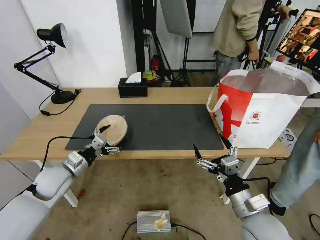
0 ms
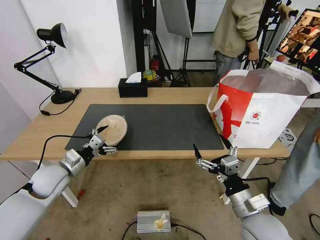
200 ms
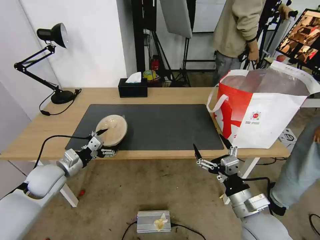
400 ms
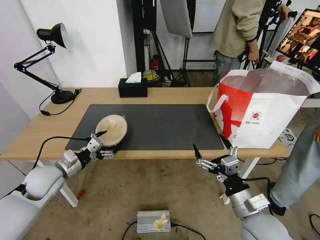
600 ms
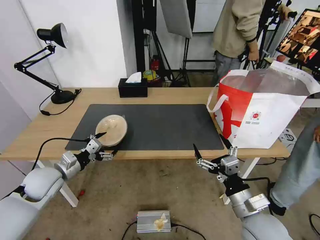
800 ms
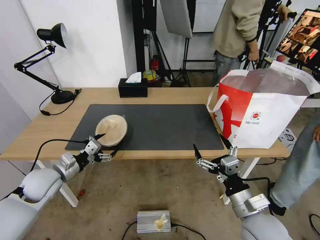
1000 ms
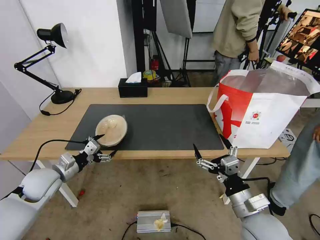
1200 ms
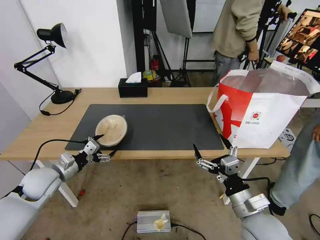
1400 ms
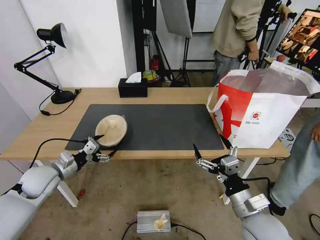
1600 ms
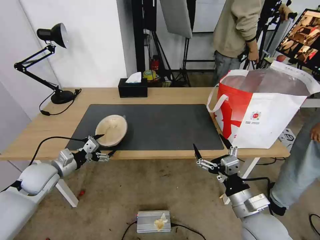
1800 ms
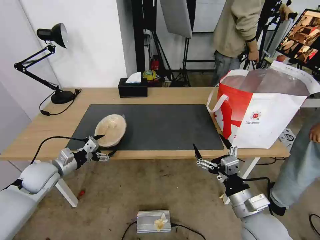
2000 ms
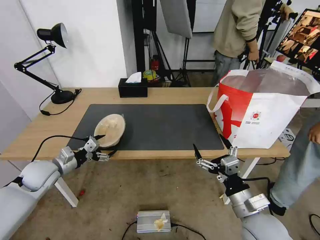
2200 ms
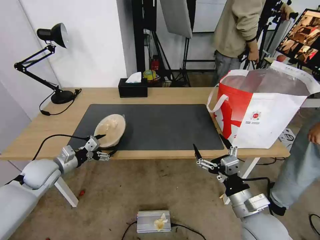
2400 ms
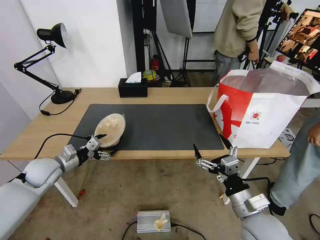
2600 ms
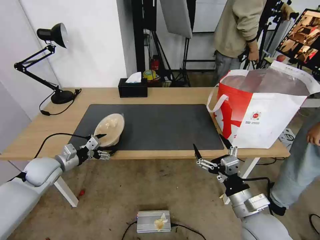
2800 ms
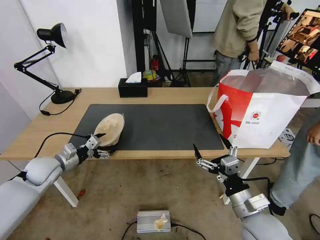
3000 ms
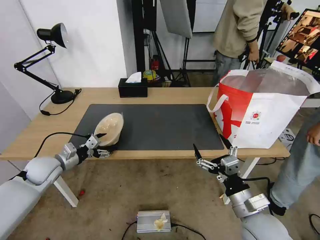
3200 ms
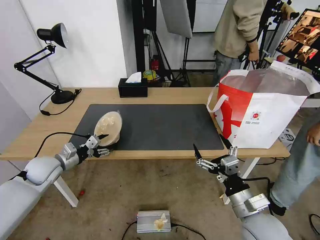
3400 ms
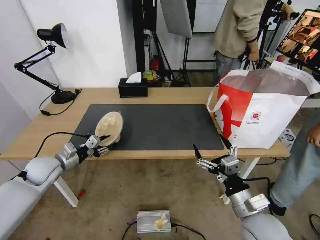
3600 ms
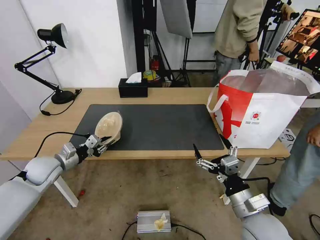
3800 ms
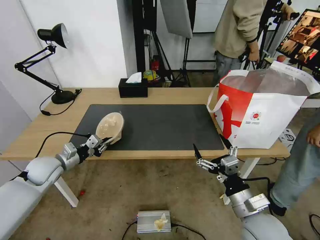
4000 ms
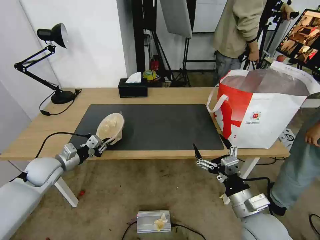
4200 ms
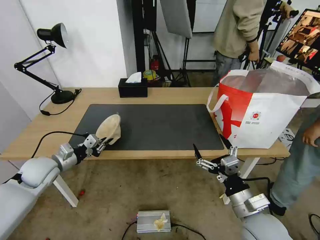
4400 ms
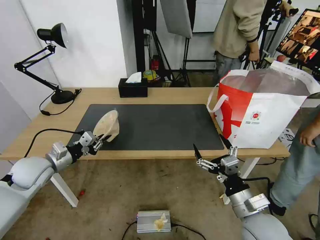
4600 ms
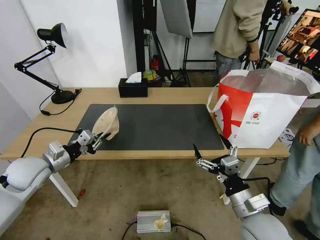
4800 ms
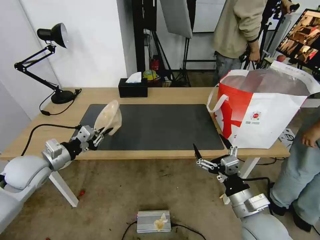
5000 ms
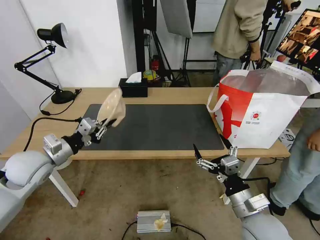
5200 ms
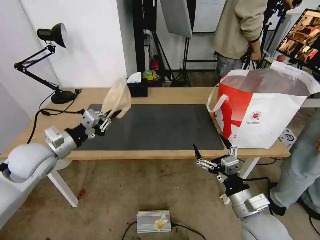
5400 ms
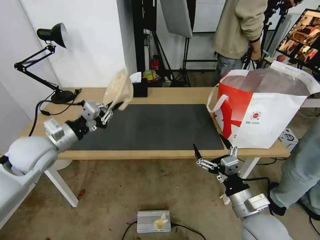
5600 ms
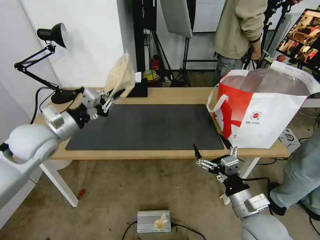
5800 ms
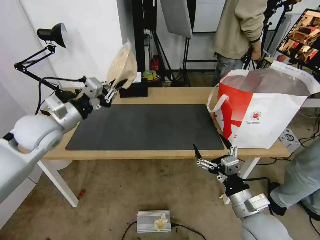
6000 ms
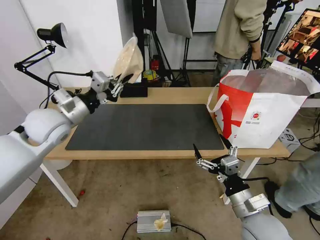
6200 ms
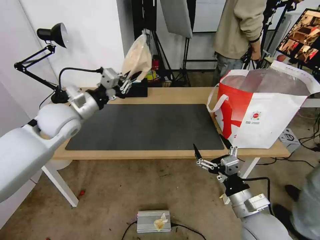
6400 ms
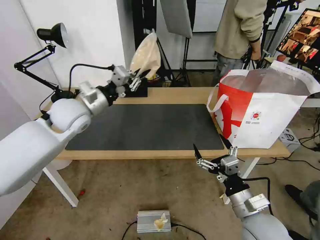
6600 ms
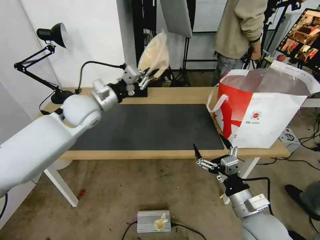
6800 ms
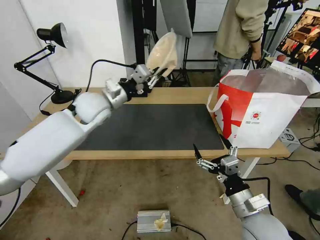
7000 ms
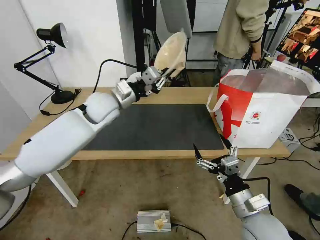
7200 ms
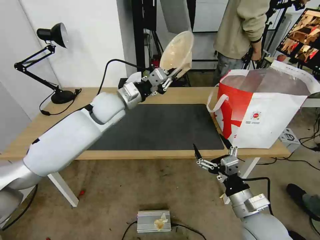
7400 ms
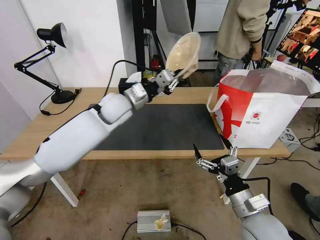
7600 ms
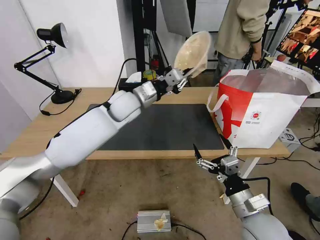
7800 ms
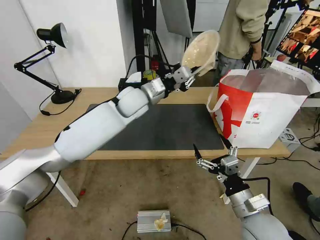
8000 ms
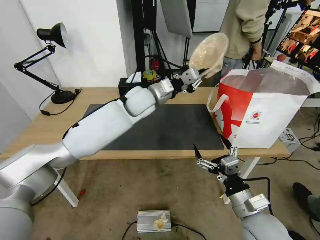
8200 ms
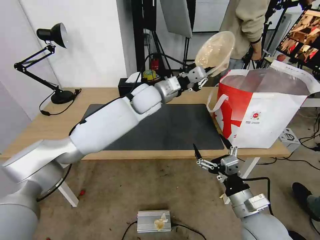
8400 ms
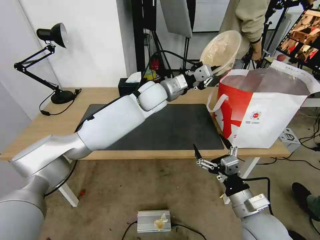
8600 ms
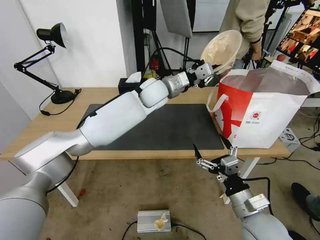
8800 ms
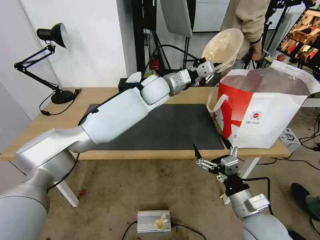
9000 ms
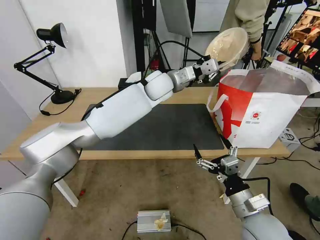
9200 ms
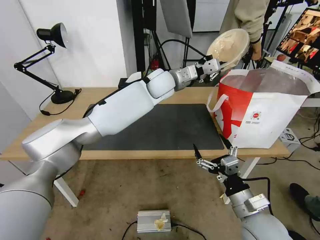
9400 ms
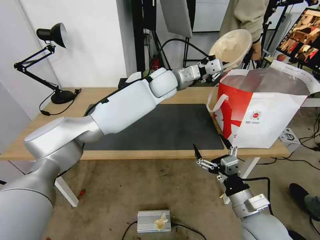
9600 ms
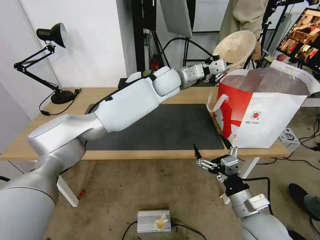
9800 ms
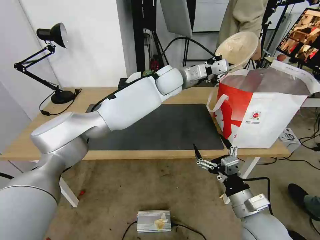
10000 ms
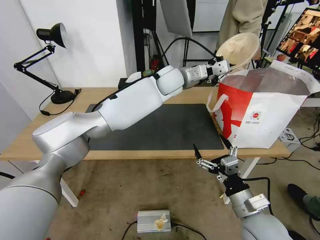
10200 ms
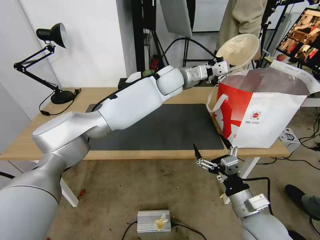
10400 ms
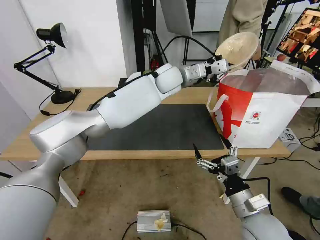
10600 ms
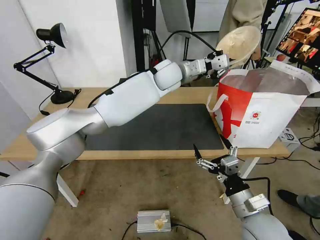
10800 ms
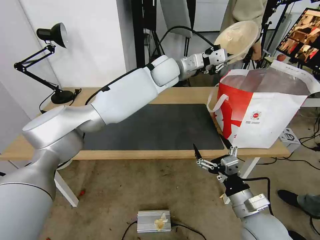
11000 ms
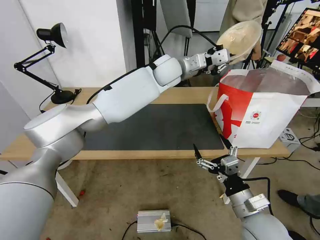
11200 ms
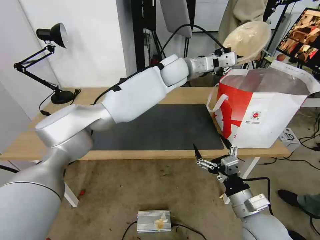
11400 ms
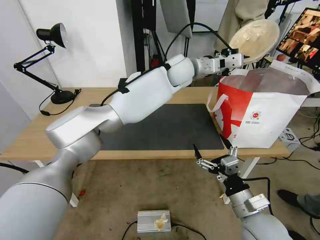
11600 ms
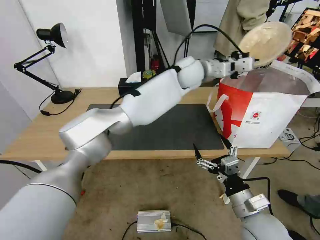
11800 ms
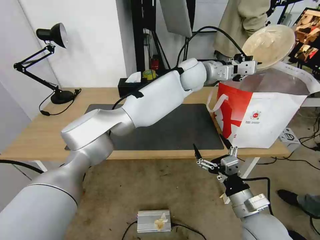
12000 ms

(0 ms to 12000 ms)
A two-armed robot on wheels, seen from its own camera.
Task of the whole recording: Pick up the trash from the table and place it into the takeout bag.
0 ms - 1600 ms: The grippers stay close to where they were, moving slightly.
1600 ms - 3000 ms: There are only small adjustments of the grippers.
3000 ms - 4400 ms: The left gripper closes its fingers.
4400 ms - 6000 ms: The left gripper travels upward and to the right by about 20 cm.
6000 ms - 7600 ms: The left gripper is displaced to the right and forward by about 20 cm.
7600 ms - 9000 ms: The left gripper is displaced to the right and forward by about 15 cm.
9000 ms - 10400 ms: The left gripper changes place by roughly 5 cm.
10400 ms - 12000 ms: The left gripper goes roughly 5 cm to the right.

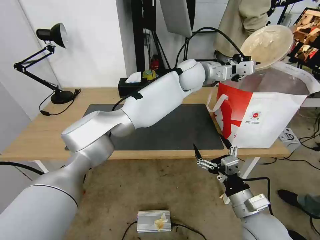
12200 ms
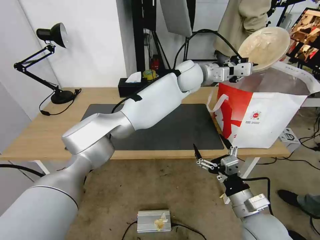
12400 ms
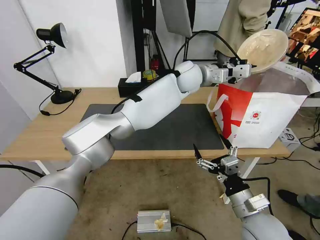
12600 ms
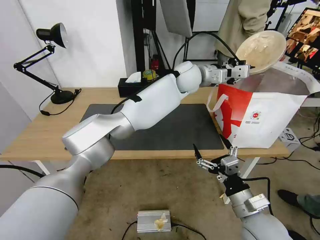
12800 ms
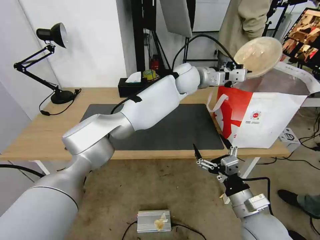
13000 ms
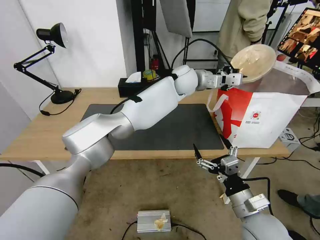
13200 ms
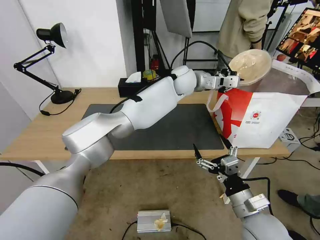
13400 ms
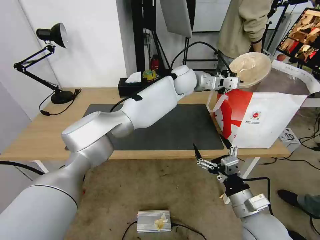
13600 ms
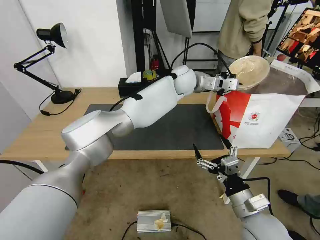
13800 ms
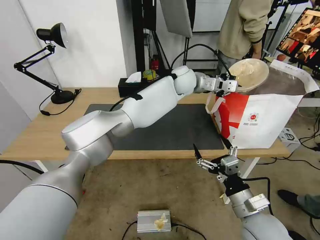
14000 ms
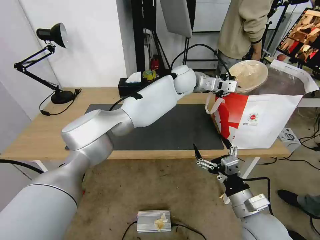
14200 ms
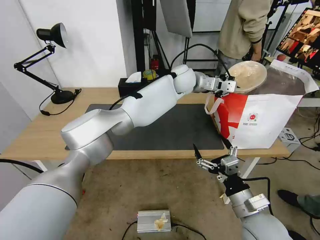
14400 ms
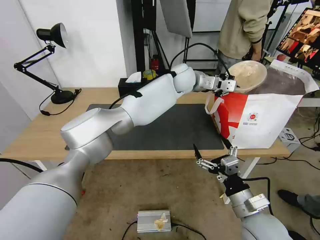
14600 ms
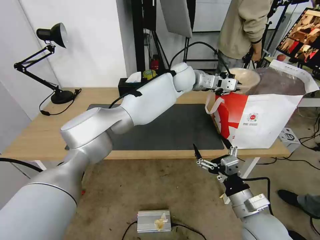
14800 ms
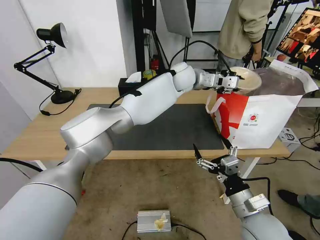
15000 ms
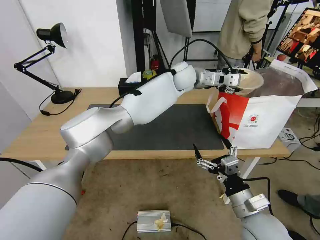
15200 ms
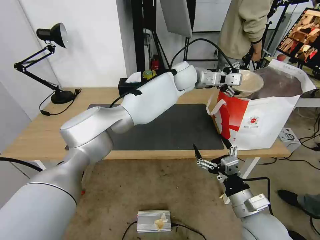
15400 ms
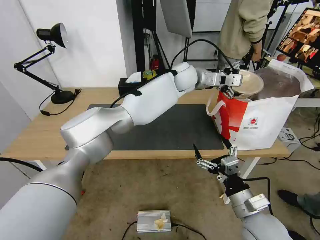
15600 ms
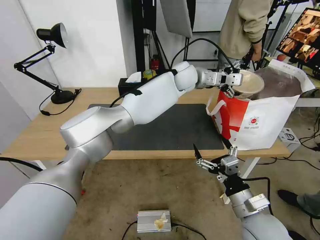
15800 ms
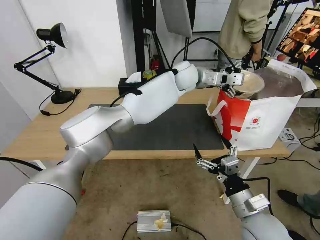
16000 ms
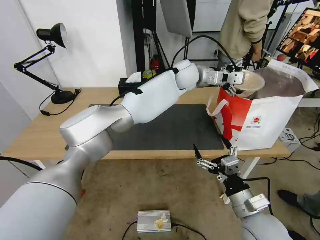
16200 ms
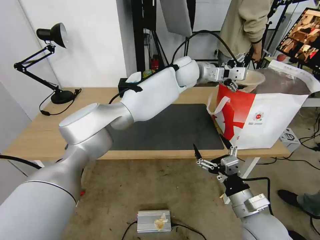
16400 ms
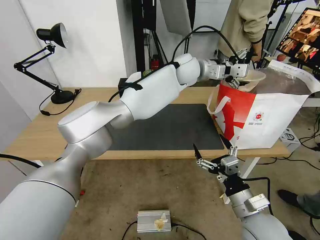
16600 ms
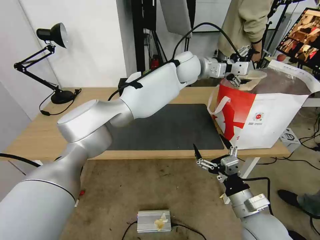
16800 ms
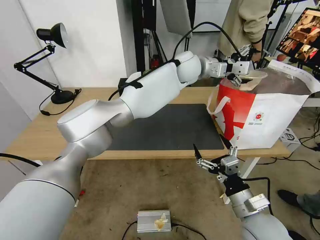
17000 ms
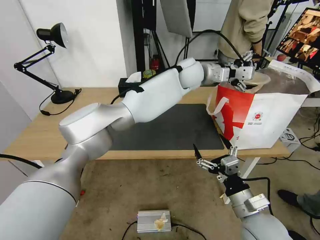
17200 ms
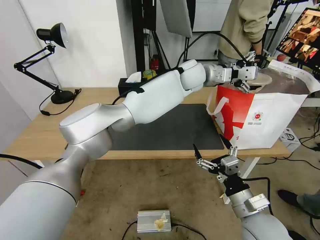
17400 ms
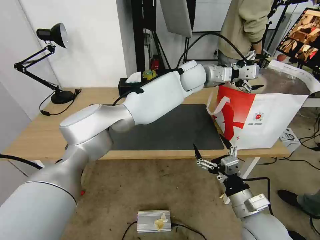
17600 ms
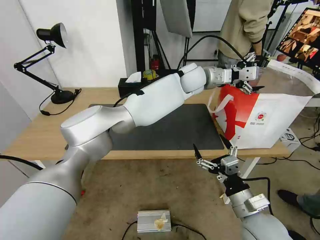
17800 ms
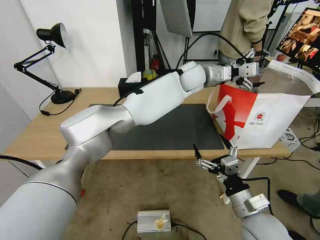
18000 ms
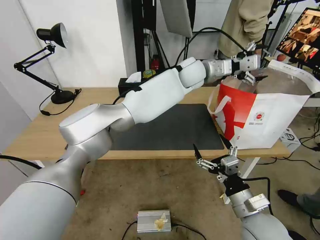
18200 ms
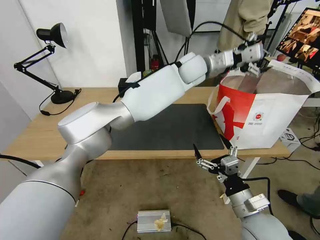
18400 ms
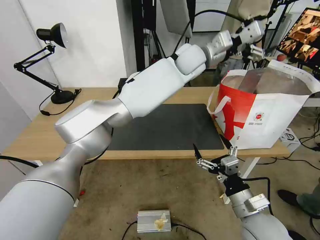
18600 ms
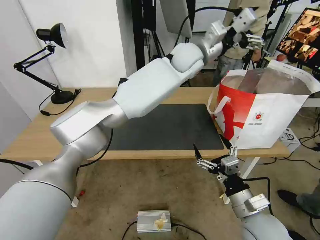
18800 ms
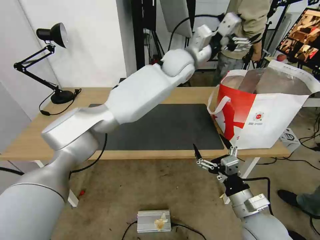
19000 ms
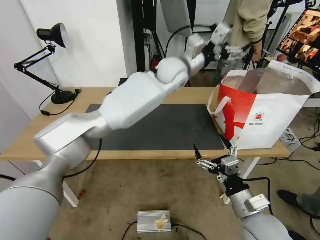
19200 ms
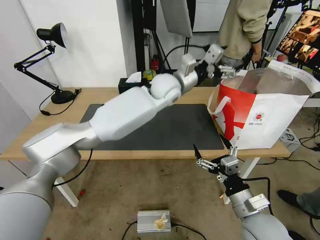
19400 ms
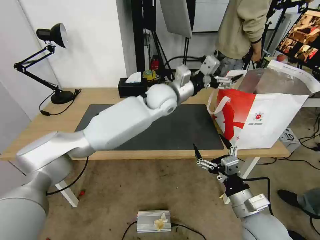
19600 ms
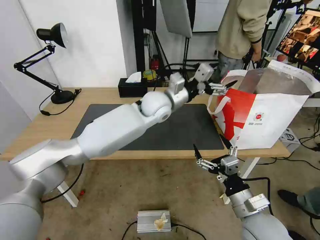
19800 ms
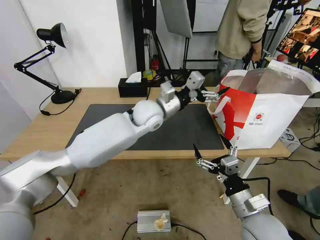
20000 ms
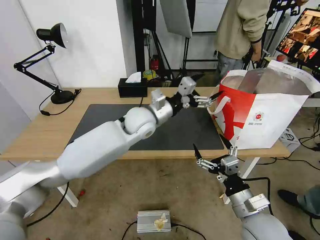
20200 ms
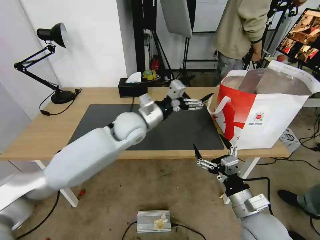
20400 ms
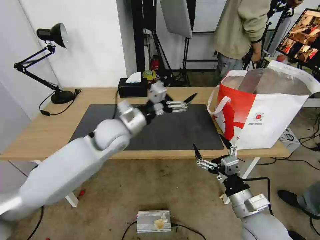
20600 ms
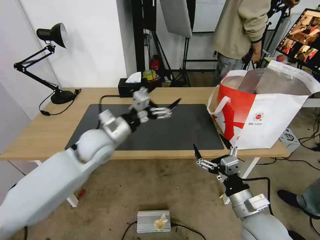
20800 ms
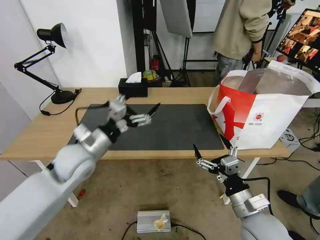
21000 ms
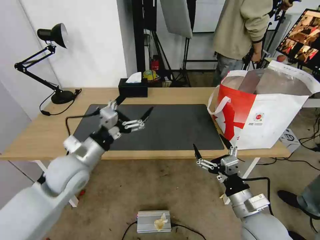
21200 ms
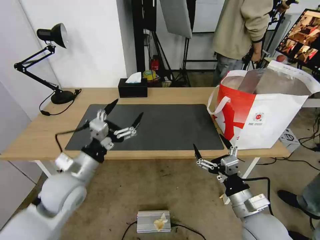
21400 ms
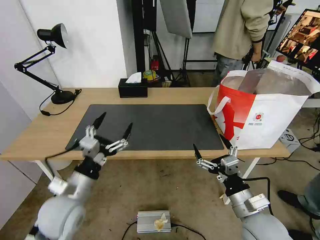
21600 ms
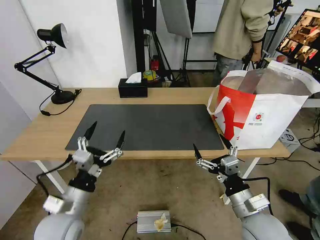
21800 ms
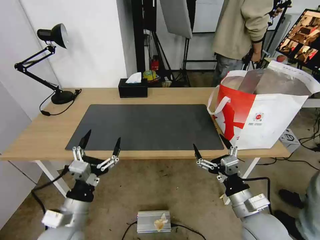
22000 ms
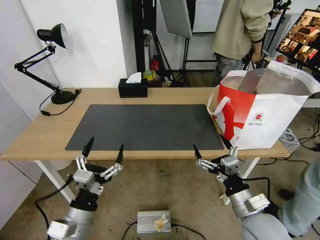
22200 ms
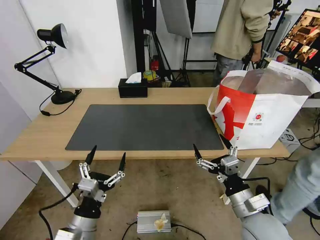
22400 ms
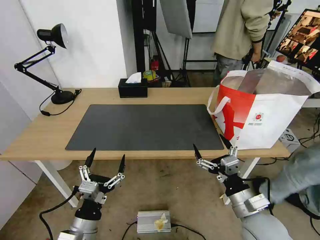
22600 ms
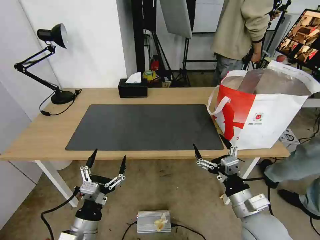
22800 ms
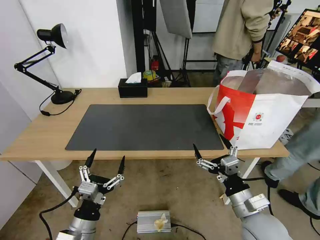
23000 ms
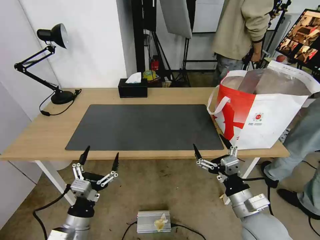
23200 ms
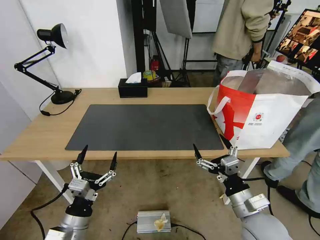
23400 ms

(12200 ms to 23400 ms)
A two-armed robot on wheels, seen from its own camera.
Task of the whole recording: Pick up the trash from the table and place it into the takeout bag.
12200 ms - 13800 ms: The grippers stay close to where they were, moving slightly.
13800 ms - 15400 ms: The left gripper opens.
15400 ms - 17000 ms: The grippers make only small movements.
18600 ms - 20200 ms: The left gripper moves to the left, downward and backward, about 25 cm.
20200 ms - 21800 ms: The left gripper heads backward, to the left and downward, covering some 35 cm.
21800 ms - 23400 ms: The left gripper goes about 10 cm downward and backward.
